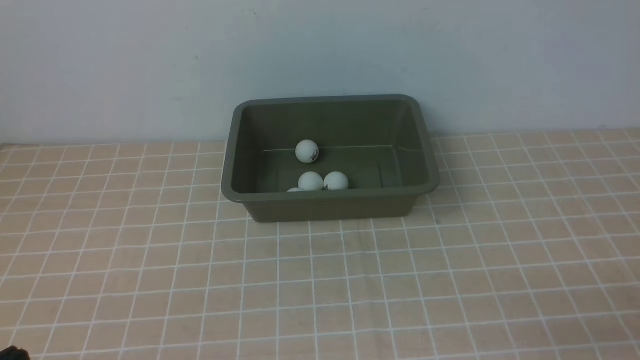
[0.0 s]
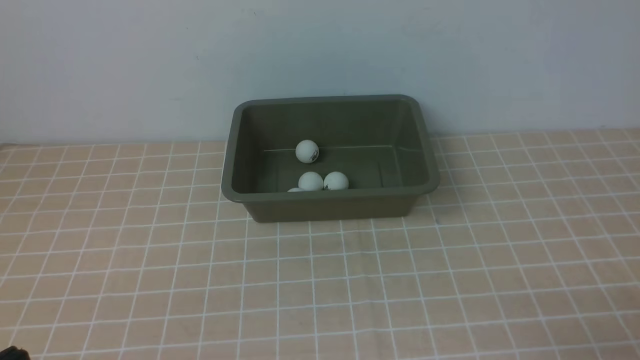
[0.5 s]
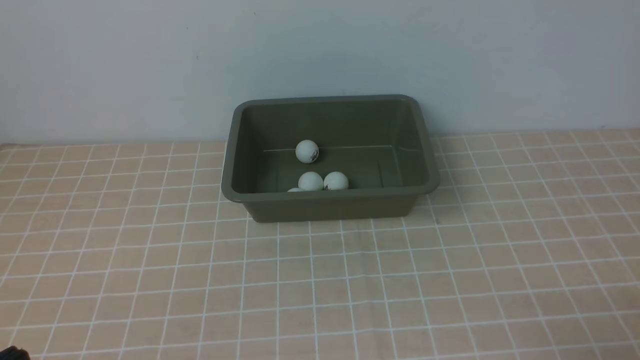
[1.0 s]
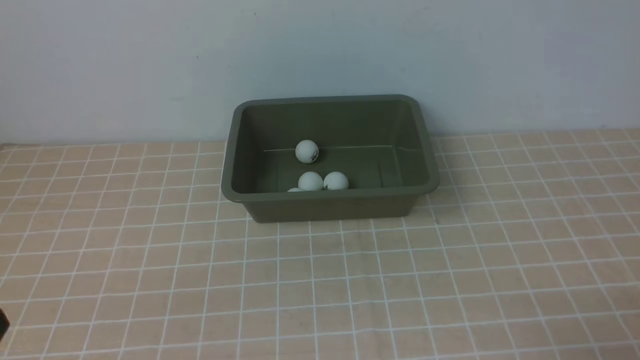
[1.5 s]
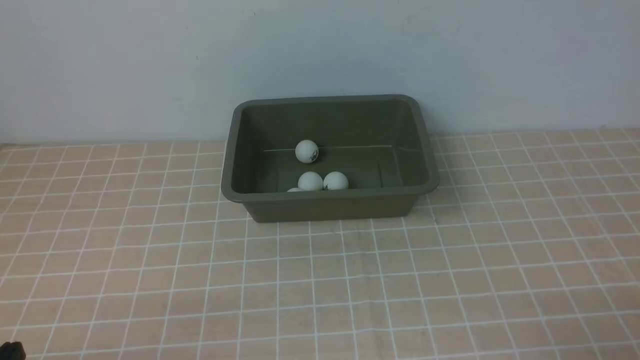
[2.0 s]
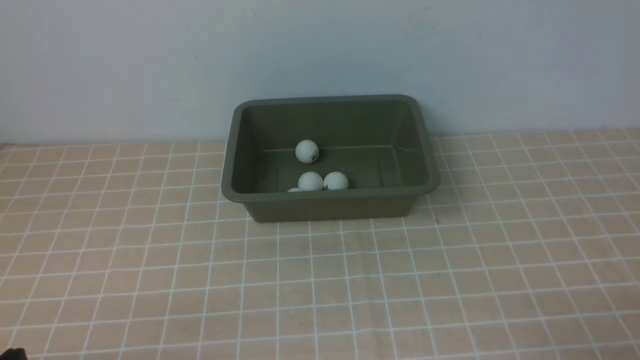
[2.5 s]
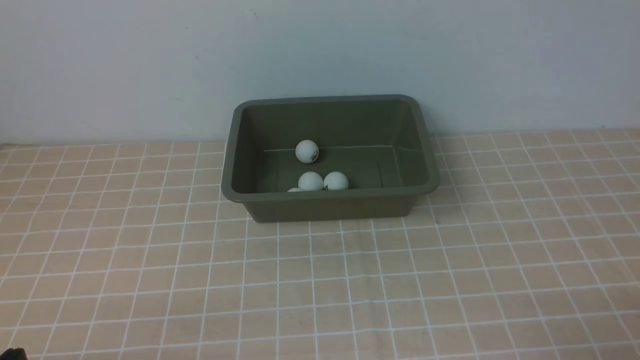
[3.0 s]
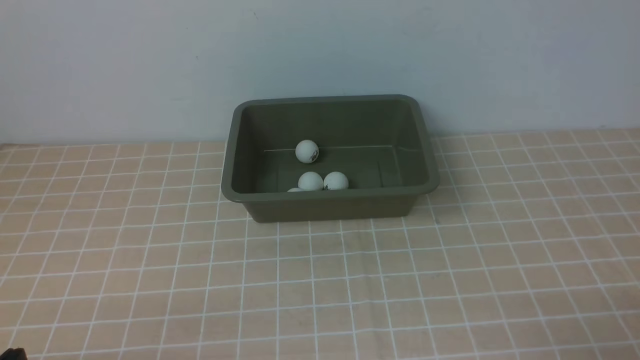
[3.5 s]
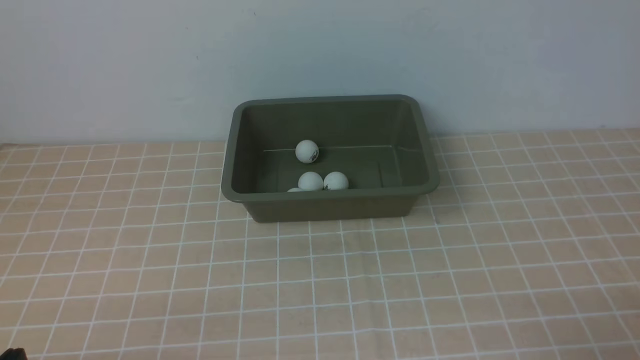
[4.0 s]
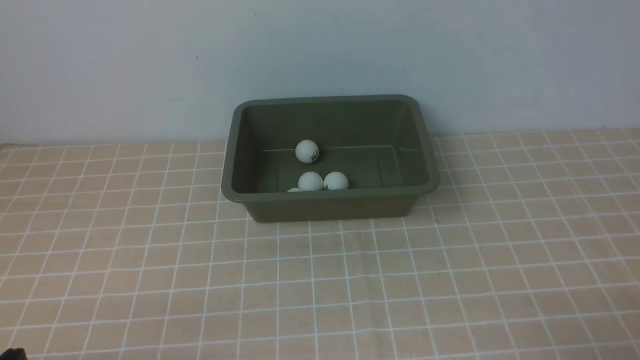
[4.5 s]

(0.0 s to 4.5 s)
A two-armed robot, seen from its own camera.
2.0 s - 4.5 s: Neither gripper changes place.

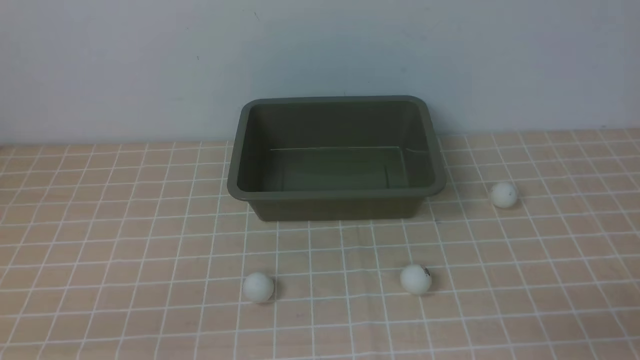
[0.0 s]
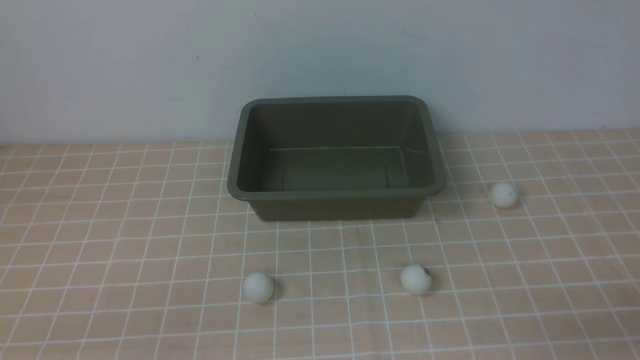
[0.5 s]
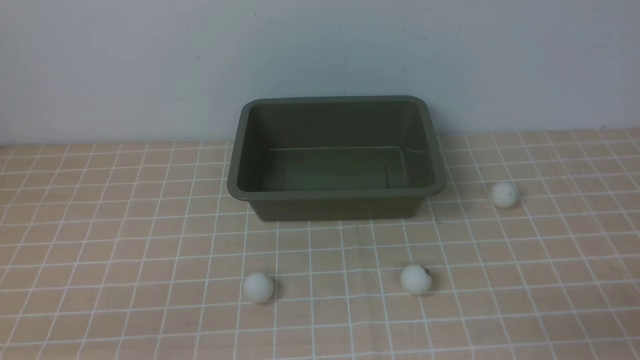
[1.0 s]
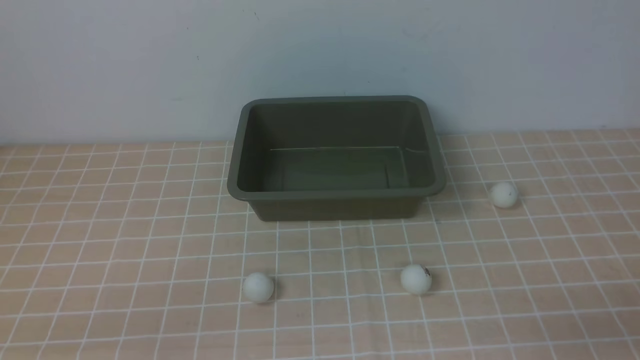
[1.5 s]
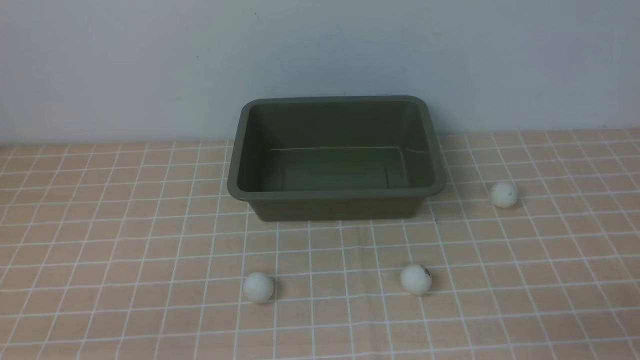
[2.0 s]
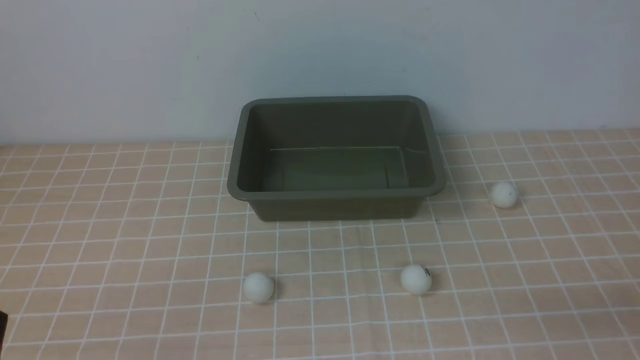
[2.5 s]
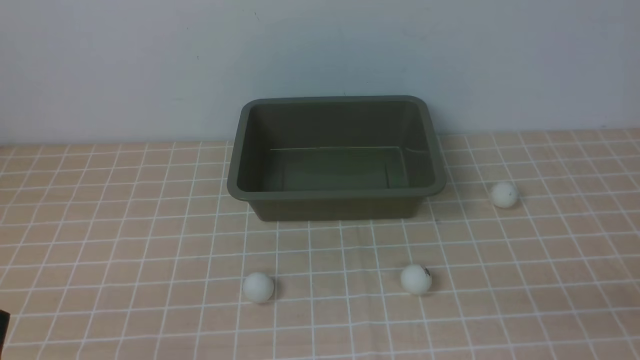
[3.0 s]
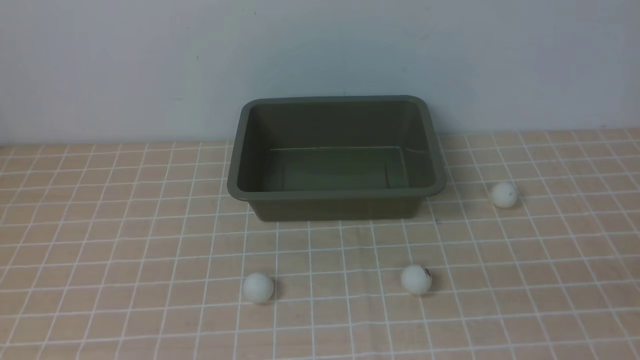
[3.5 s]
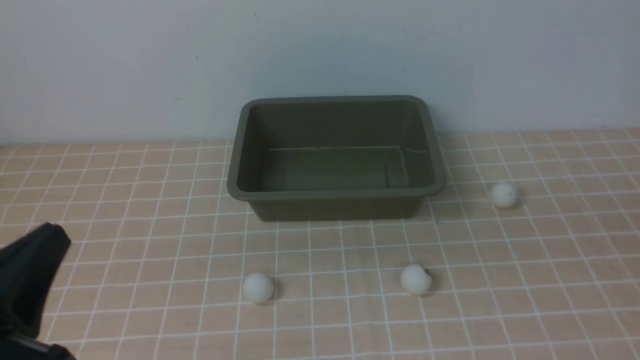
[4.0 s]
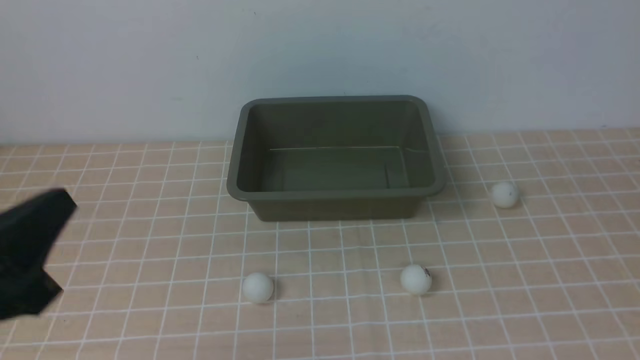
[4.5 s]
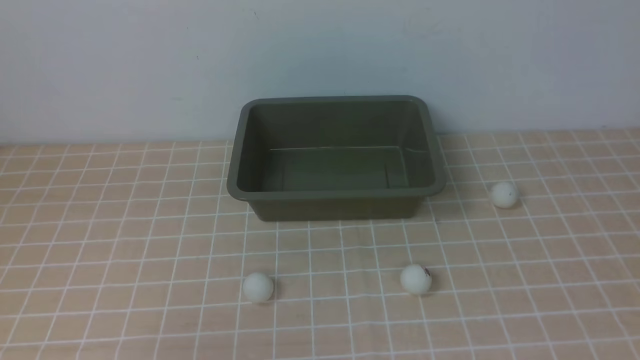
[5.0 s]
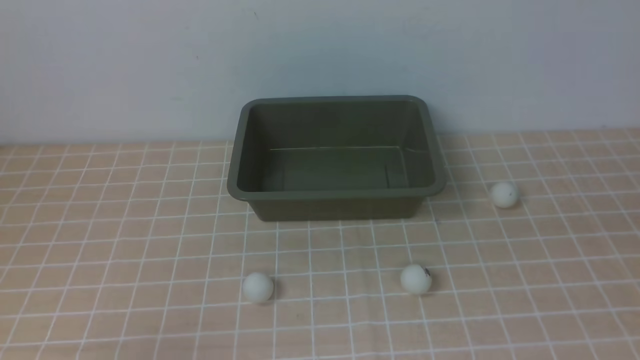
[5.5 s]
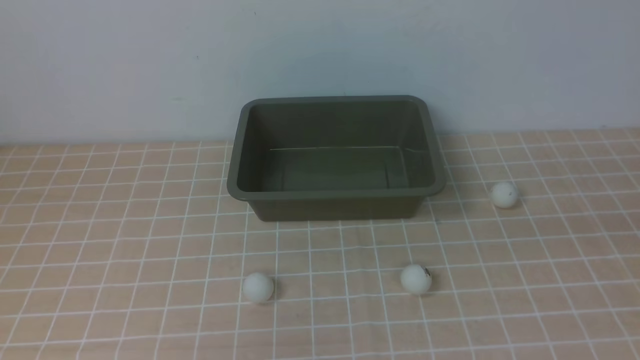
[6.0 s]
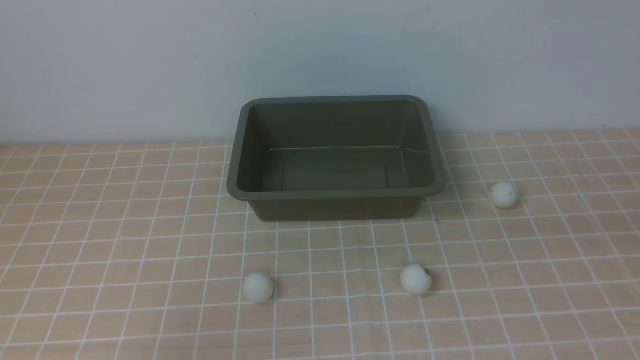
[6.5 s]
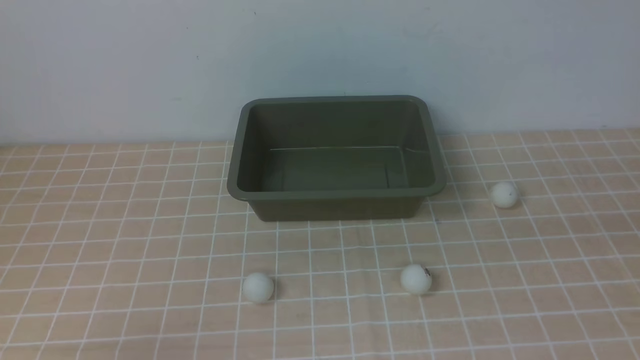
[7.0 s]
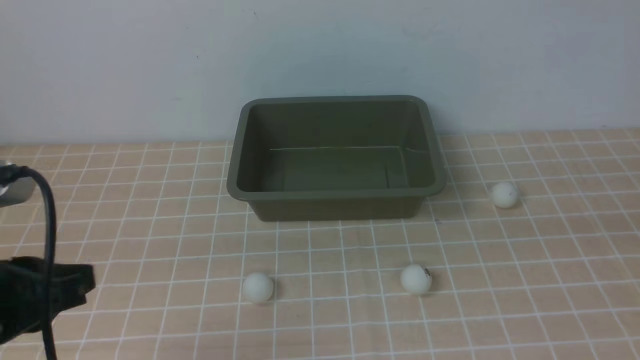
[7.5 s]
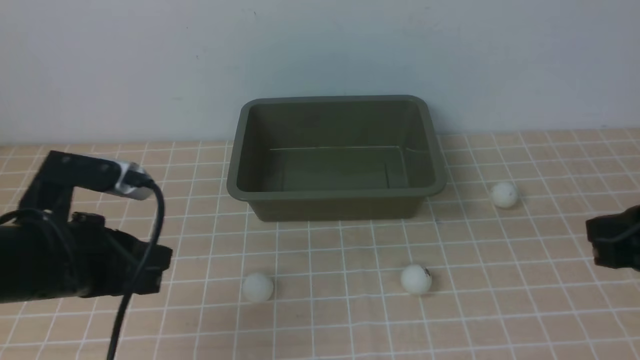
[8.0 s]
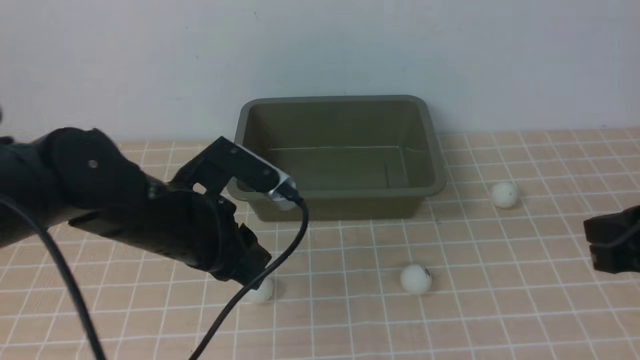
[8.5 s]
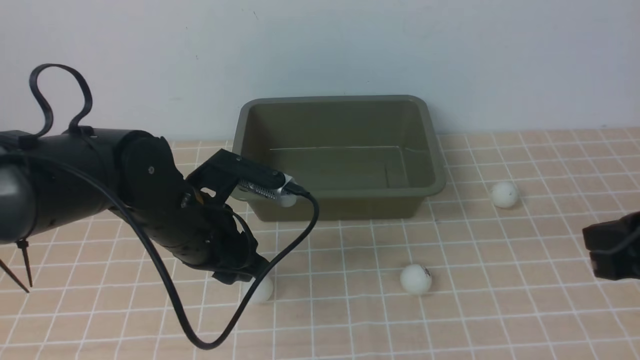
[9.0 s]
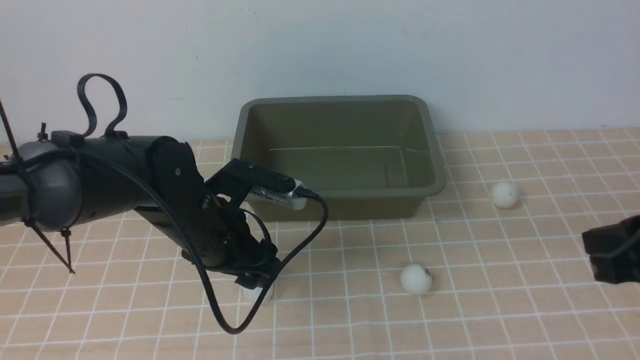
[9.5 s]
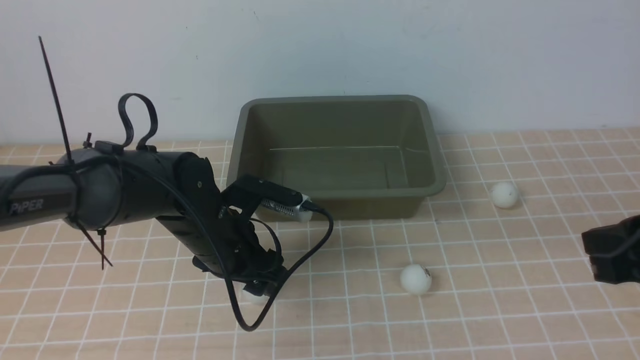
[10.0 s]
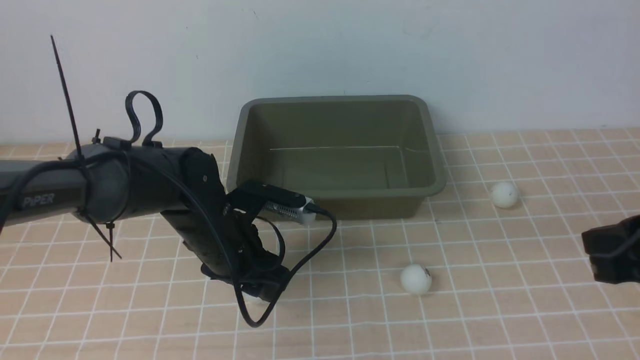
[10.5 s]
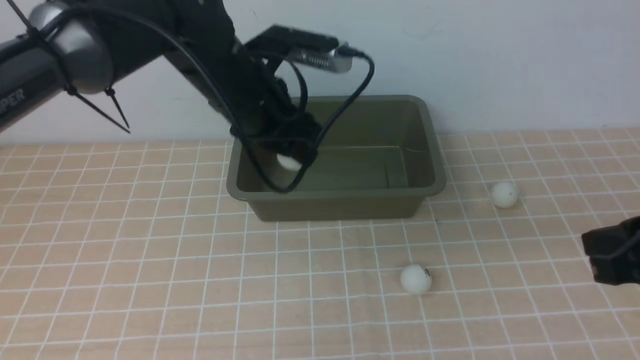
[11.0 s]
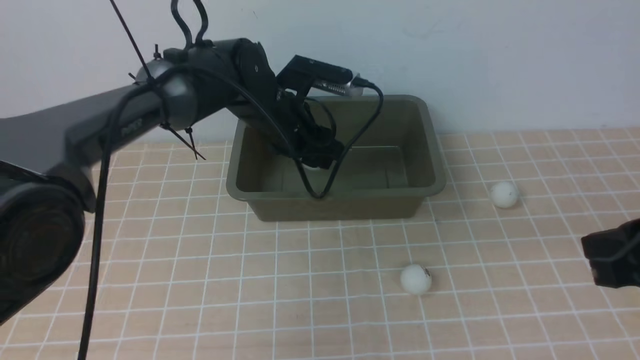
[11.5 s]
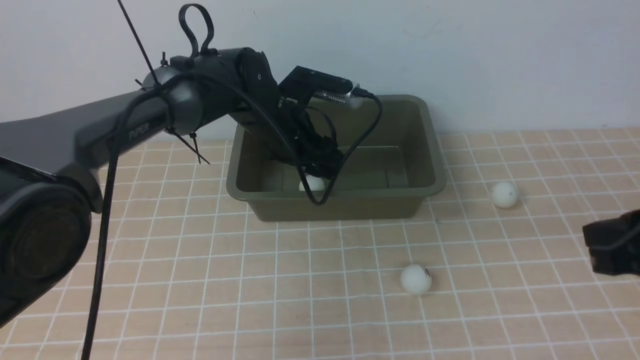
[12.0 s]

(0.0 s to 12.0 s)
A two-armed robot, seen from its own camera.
Step, 0.0 s - 10.5 s: use the left arm to clamp the table tennis ball closest to it.
0.0 s - 2.0 s: The two grippers keep their place.
2.0 s - 4.0 s: The left gripper moves upward, roughly 10 cm.
4.0 s - 6.0 s: The left gripper goes some 10 cm upward.
6.0 s - 8.0 s: The right gripper goes some 10 cm to the left and forward; the left gripper heads downward and forward, covering some 15 cm.
8.0 s - 10.0 s: The left gripper shifts some 15 cm forward, to the right and downward, and opens.
10.0 s - 12.0 s: The left gripper is displaced forward, upward and to the right by some 15 cm.

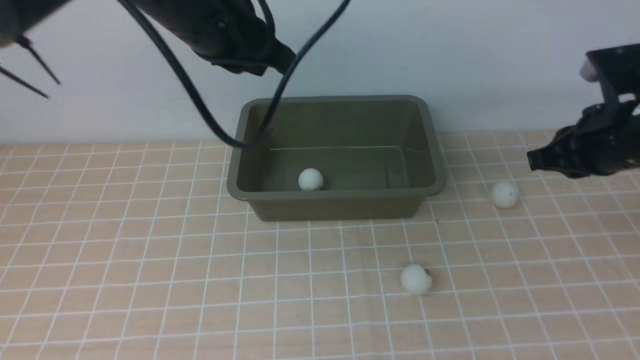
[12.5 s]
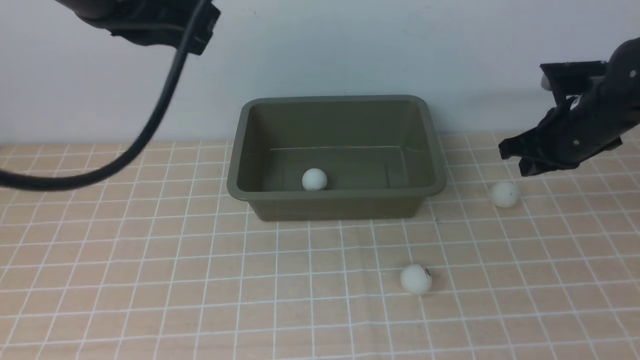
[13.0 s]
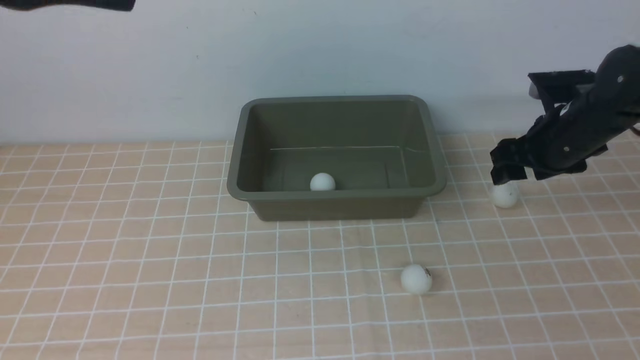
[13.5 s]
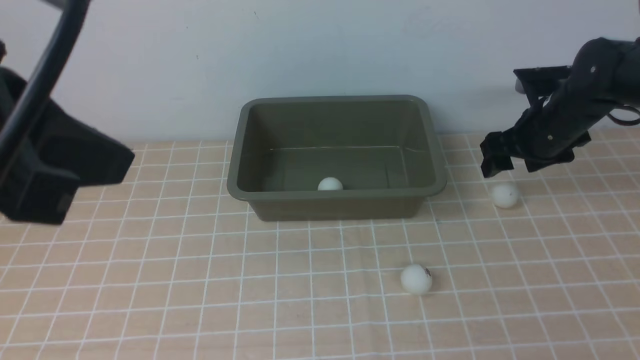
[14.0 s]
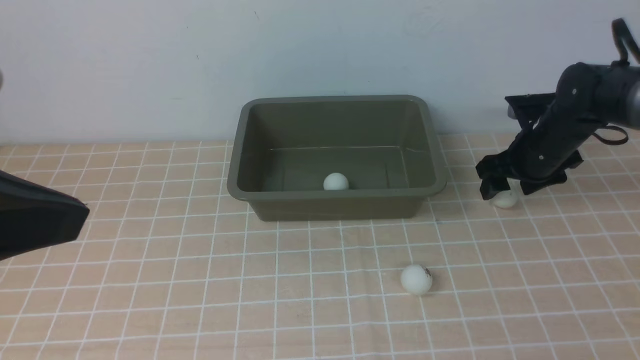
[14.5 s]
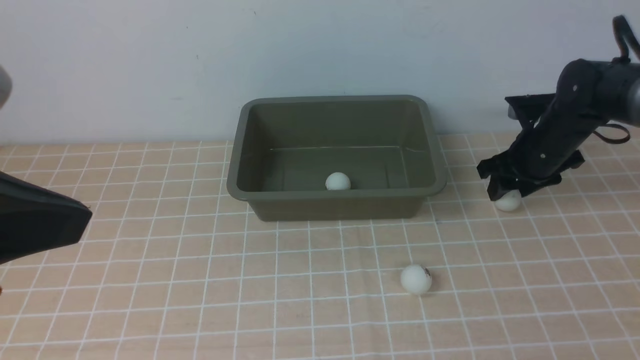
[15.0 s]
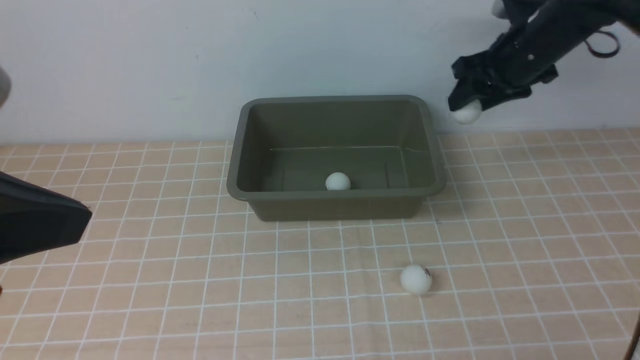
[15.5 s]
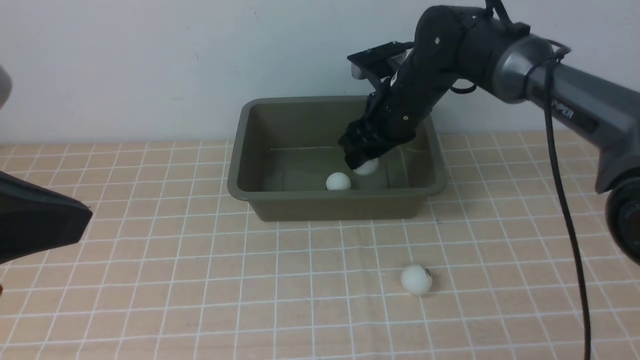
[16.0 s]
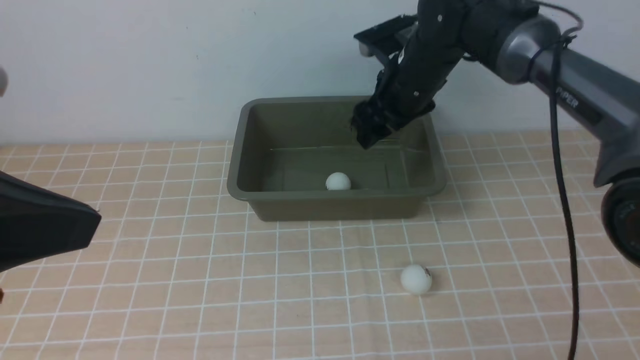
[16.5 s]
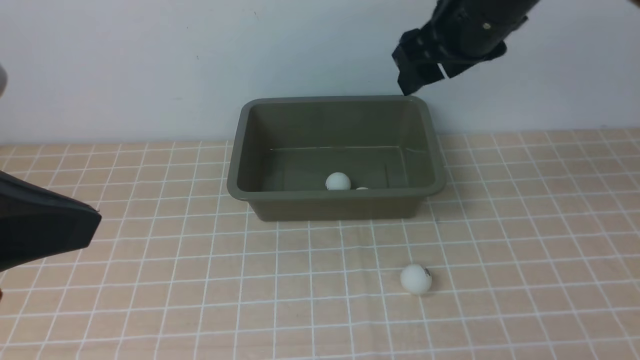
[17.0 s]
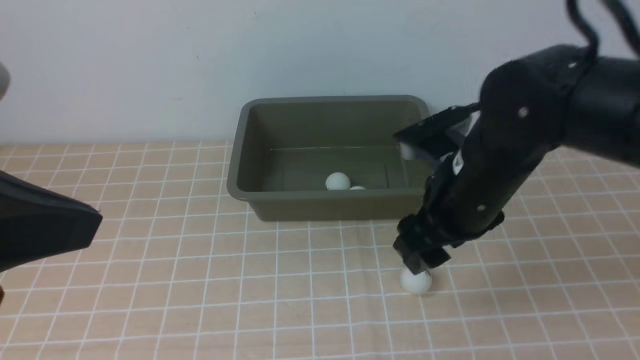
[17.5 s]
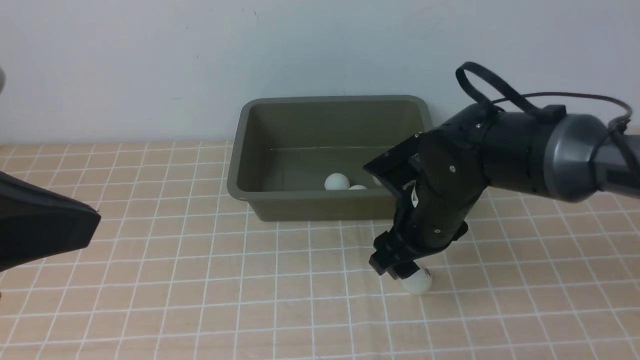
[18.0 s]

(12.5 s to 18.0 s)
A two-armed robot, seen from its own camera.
Step, 12.5 s - 15.0 s: use the right arm to clamp the table tennis ball closest to it.
Step, 15.5 s - 16.5 s: use the right arm to put the table tennis ball into the box.
12.5 s - 14.5 s: The right gripper shifts approximately 15 cm forward and downward, and opens its fingers. Meanwhile the left gripper is displaced backward by approximately 25 cm.
14.5 s - 16.0 s: The right gripper travels to the left and upward by approximately 20 cm.
16.0 s - 18.0 s: The right gripper is displaced backward by approximately 15 cm, and goes upward and returns, about 10 cm each way.
